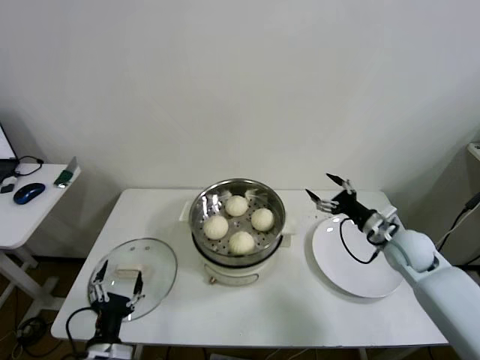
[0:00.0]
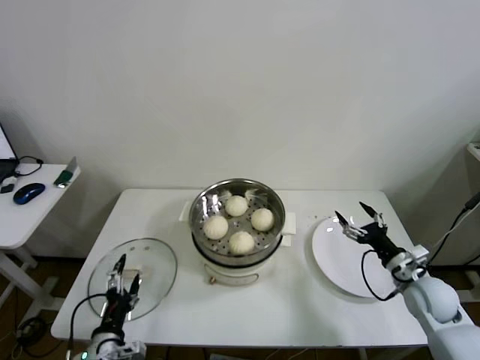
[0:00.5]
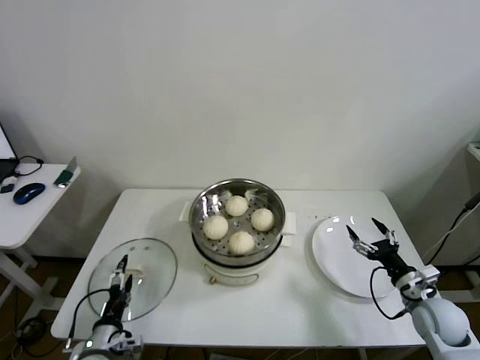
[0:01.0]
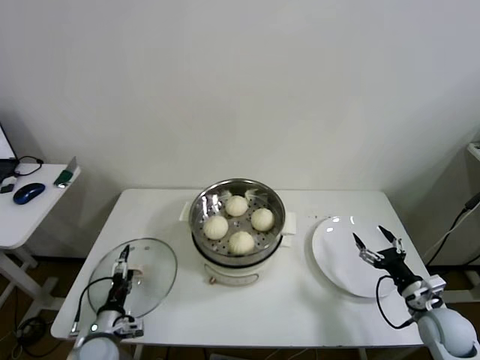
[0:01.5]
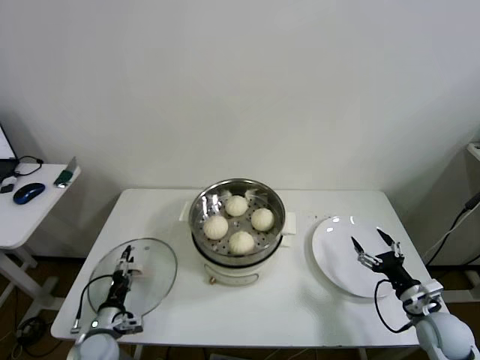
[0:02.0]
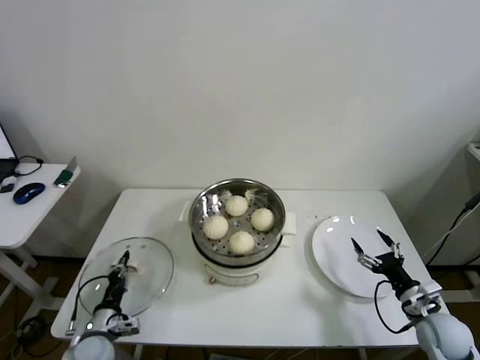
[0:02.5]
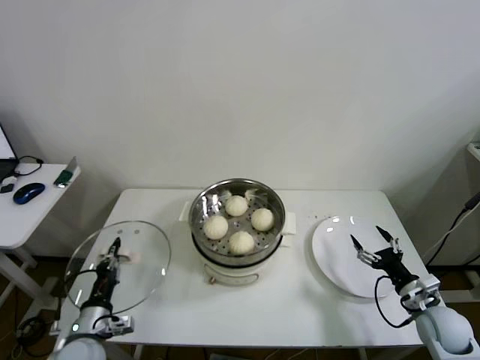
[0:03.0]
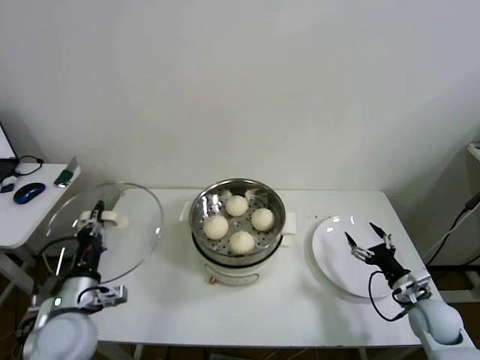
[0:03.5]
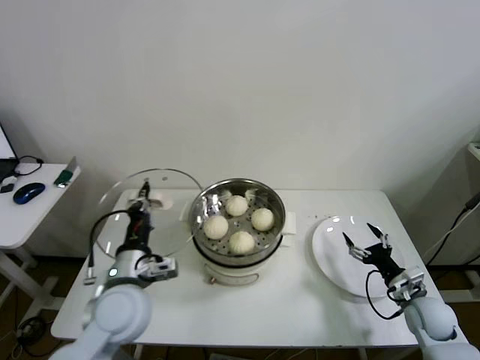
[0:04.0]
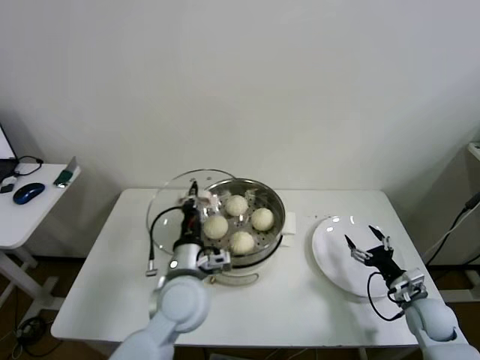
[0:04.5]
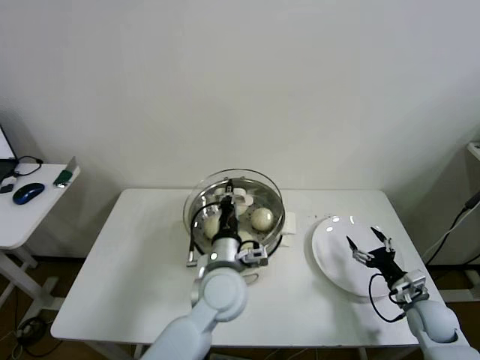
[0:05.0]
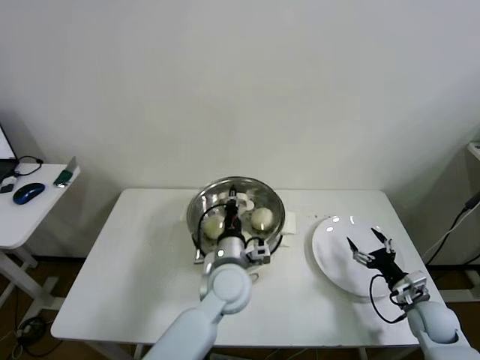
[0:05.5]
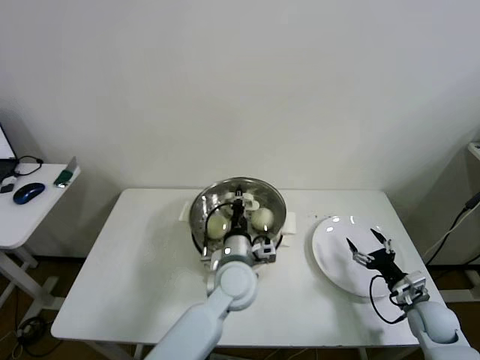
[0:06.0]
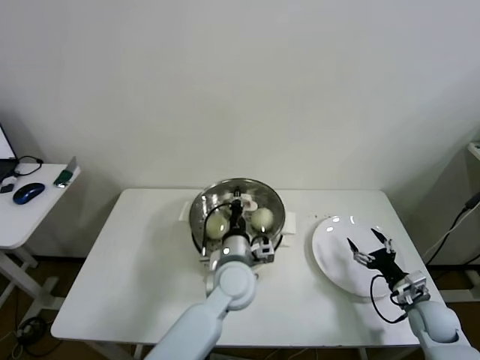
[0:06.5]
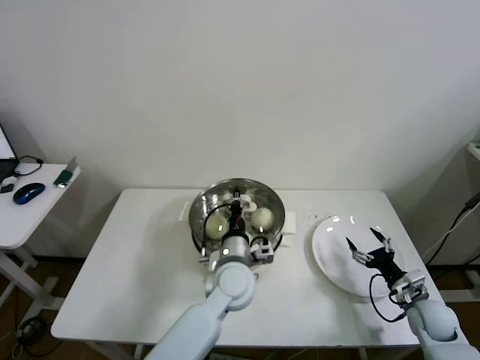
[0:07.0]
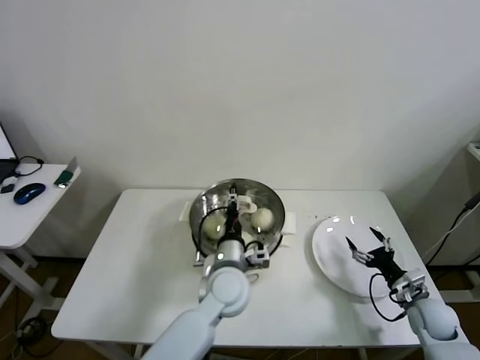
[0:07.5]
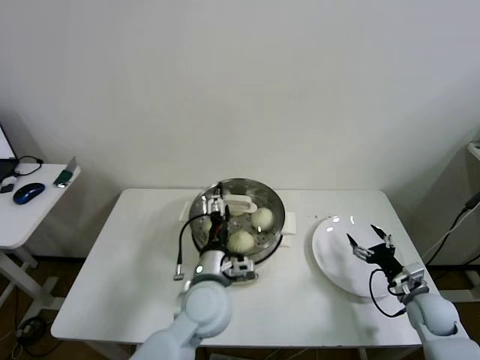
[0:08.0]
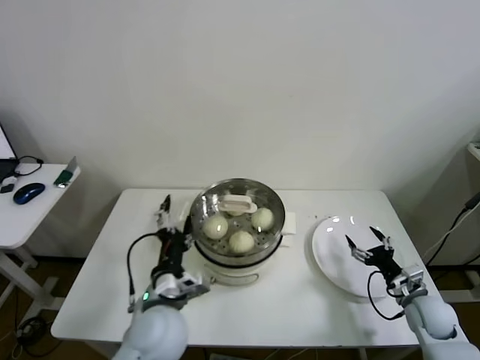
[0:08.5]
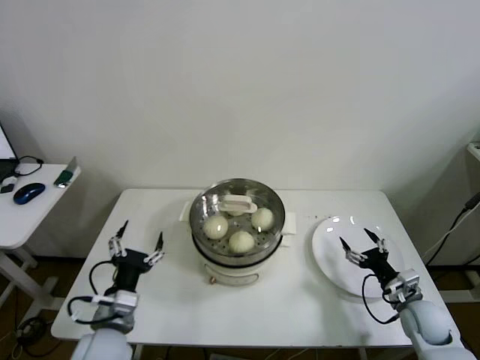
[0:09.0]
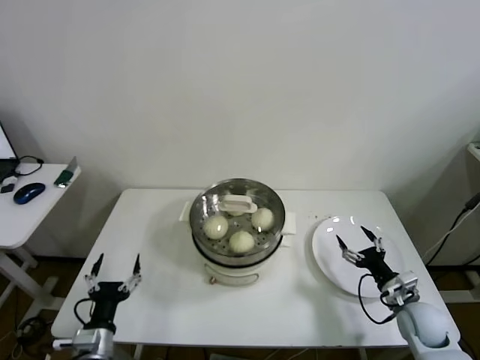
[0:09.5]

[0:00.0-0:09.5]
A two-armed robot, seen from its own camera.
Step, 0:00.0 to 0:02.5: Grasp the pot lid with left gripper.
Step, 0:03.0 to 0:08.0: Place the pot lid on the steamer with left gripper.
0:00.0 to 0:02.0: The left gripper is displaced forward, downward and to the left by about 15 cm, while the right gripper heads backward and downward, covering about 20 cm.
0:02.0 to 0:04.0: The left gripper moves upward and to the right, about 25 cm, and closes.
0:04.0 to 0:05.5: The left gripper shifts about 20 cm to the right.
0:05.5 to 0:07.5: The left gripper opens.
0:07.5 to 0:09.5: The left gripper shifts about 30 cm to the left and backward, and opens up.

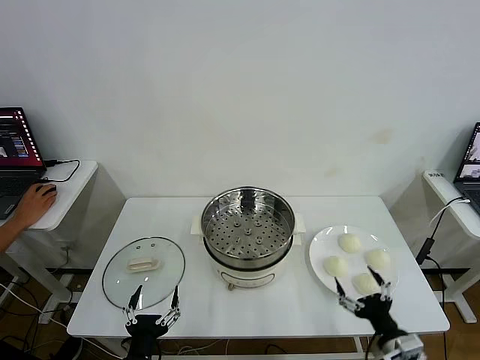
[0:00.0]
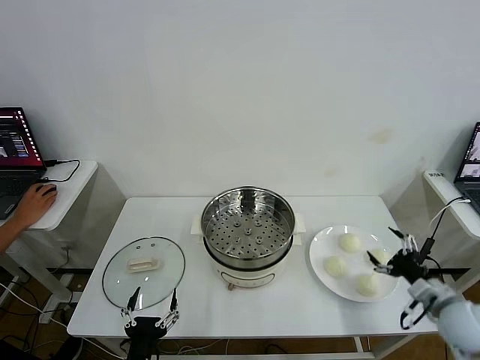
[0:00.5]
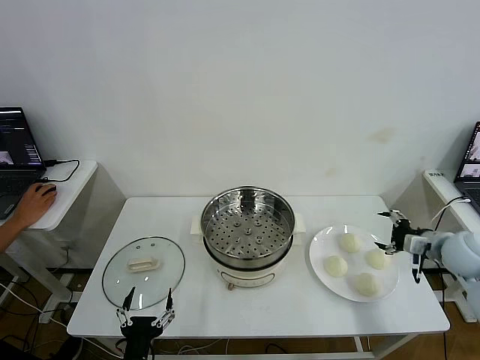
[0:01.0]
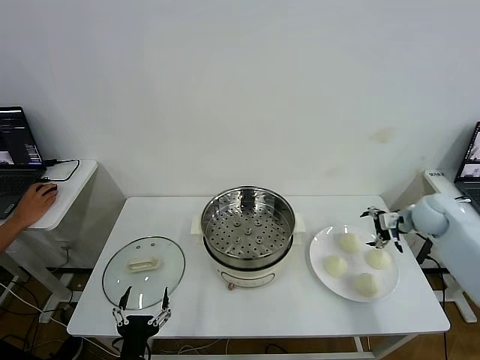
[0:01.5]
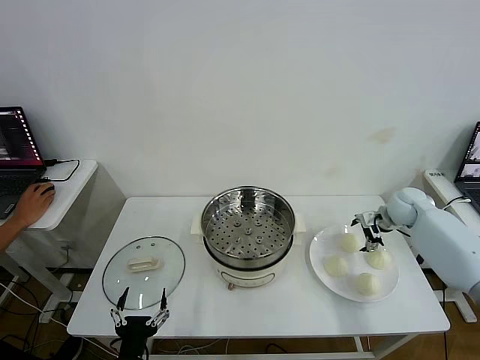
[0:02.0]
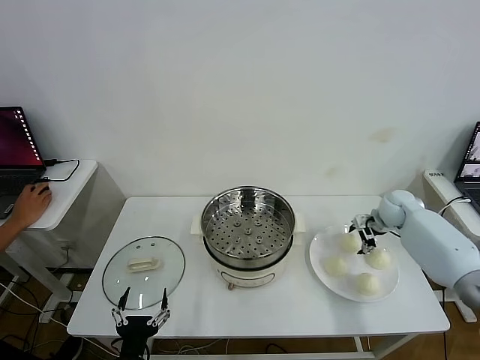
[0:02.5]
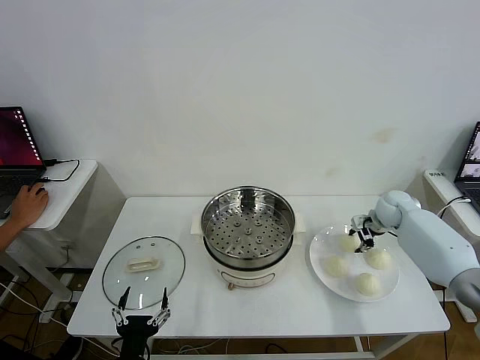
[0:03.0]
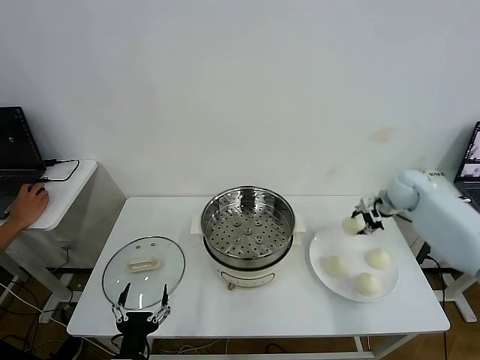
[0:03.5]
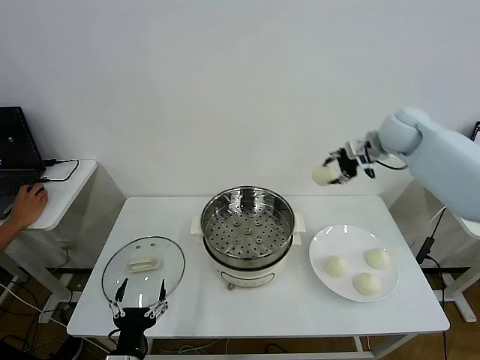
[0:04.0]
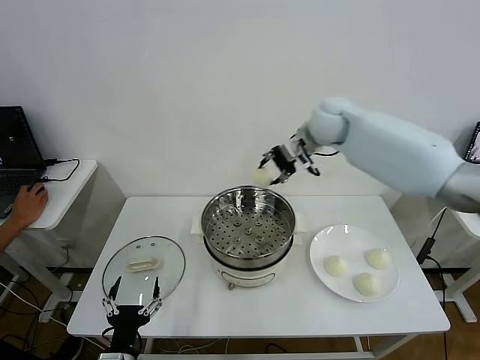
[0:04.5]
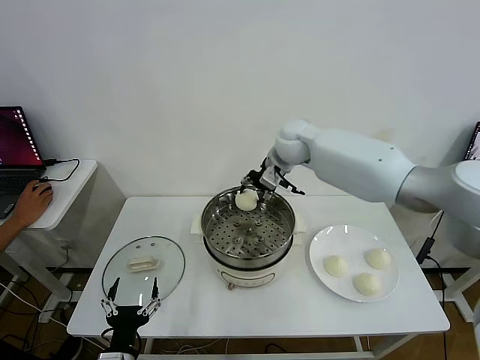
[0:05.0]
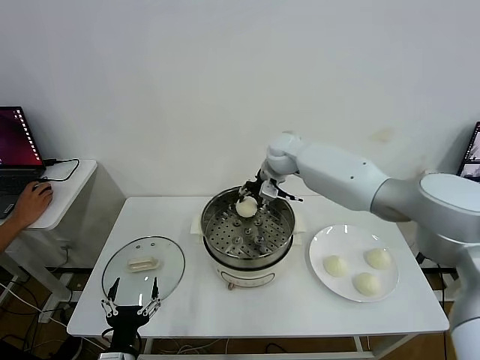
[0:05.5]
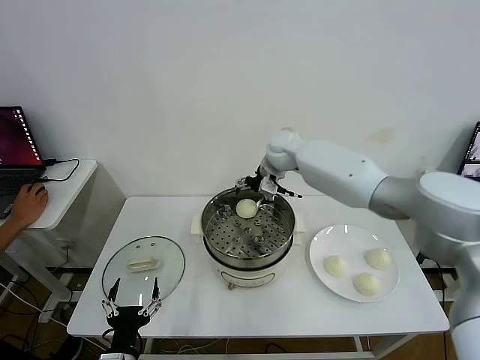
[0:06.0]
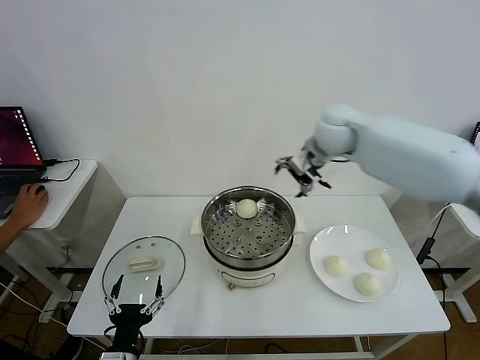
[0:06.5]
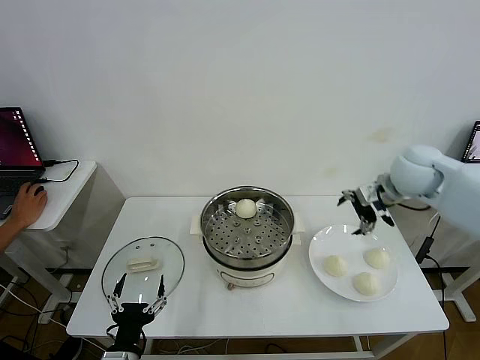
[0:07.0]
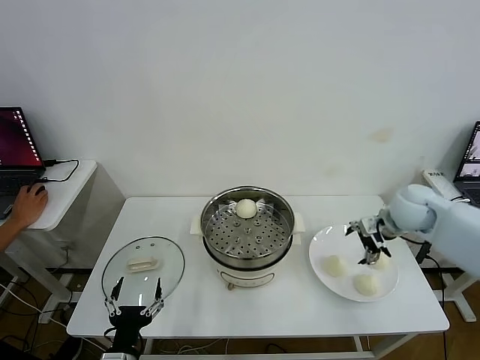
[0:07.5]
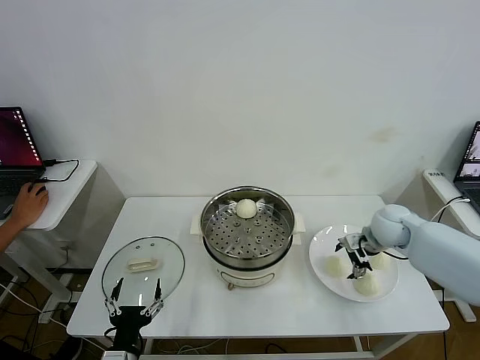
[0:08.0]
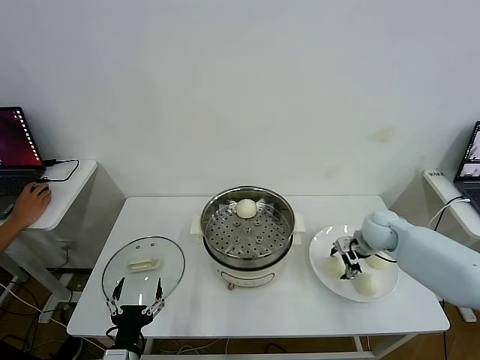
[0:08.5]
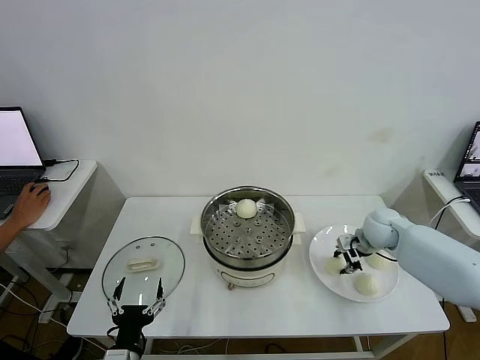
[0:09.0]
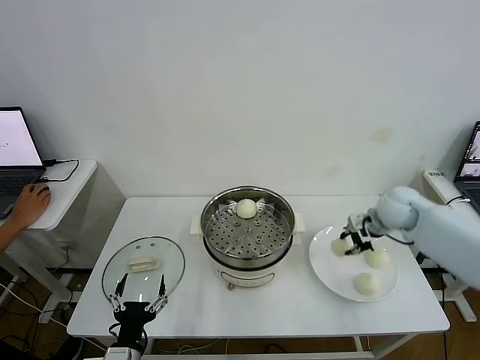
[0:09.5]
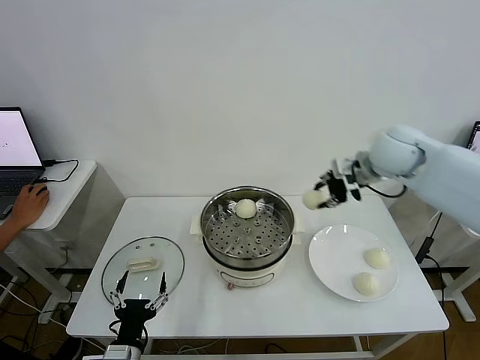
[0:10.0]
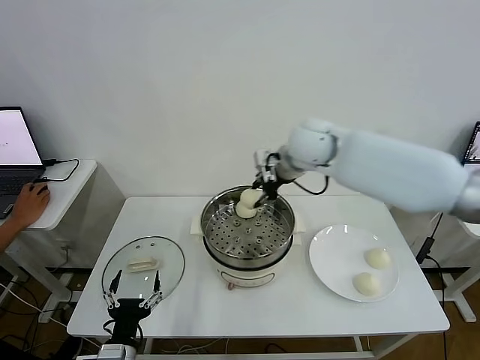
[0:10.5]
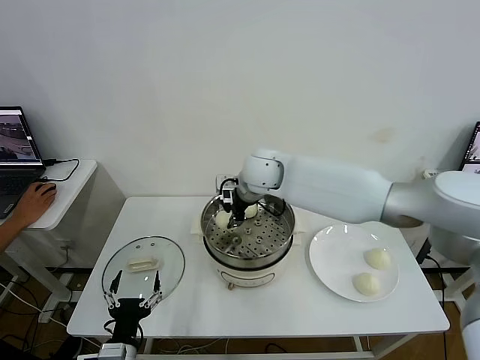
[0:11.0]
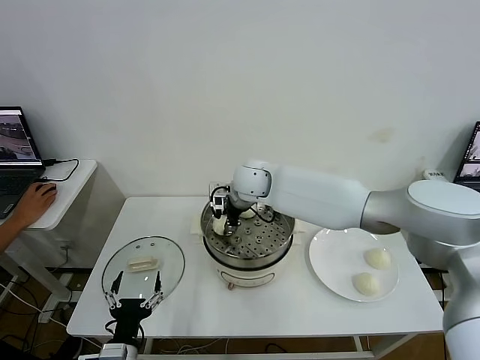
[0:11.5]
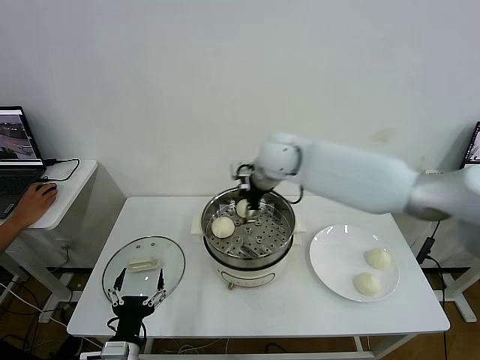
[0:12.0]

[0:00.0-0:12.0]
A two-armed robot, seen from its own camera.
Step, 0:00.0 to 0:03.0: Grasp the baozi in the plate with right gripper.
Step, 0:03.5 to 0:06.0: Place the baozi on the steamer with right gripper.
Step, 0:06.5 to 0:09.0: Grasp the baozi in the plate with right gripper.
Step, 0:09.5 to 0:12.0: Place the baozi on the steamer with right gripper.
0:02.0 to 0:04.0: The right gripper is displaced upward and to the left by some 25 cm, and closes up.
0:04.0 to 0:06.0: The right gripper goes about 20 cm to the left, and opens its fingers.
0:06.0 to 0:08.0: The right gripper is displaced to the right, downward and backward by roughly 30 cm.
0:08.0 to 0:10.0: The right gripper goes about 20 cm upward, and closes.
0:10.0 to 0:12.0: The right gripper heads to the left, covering approximately 20 cm, and opens.

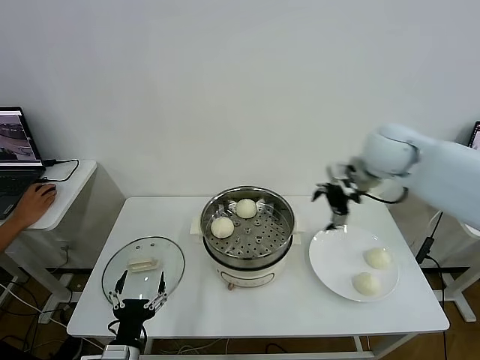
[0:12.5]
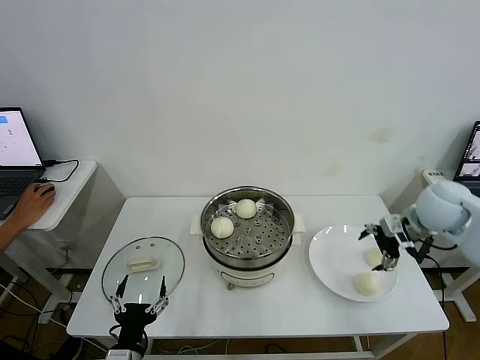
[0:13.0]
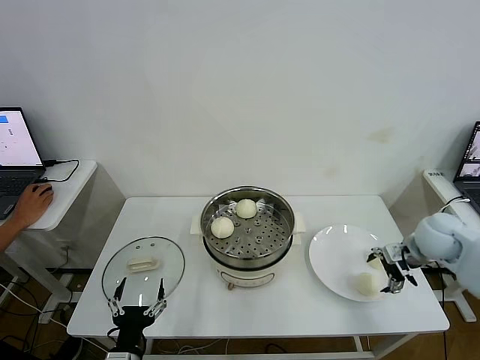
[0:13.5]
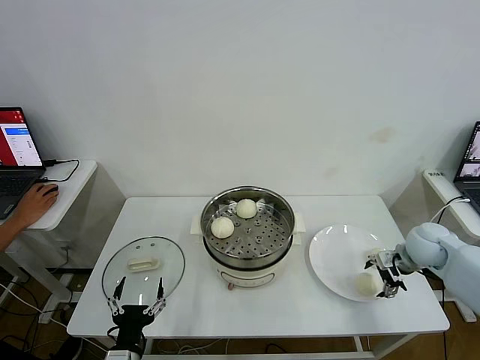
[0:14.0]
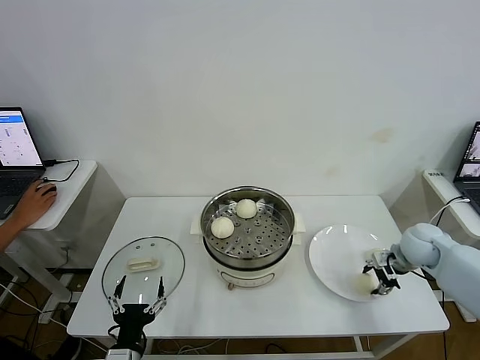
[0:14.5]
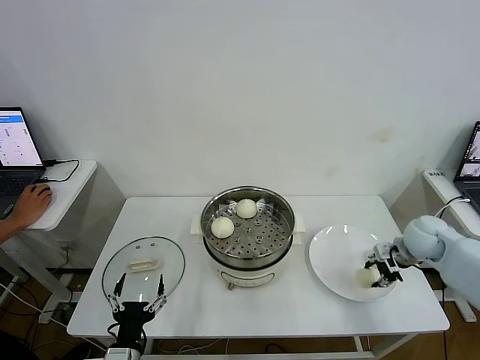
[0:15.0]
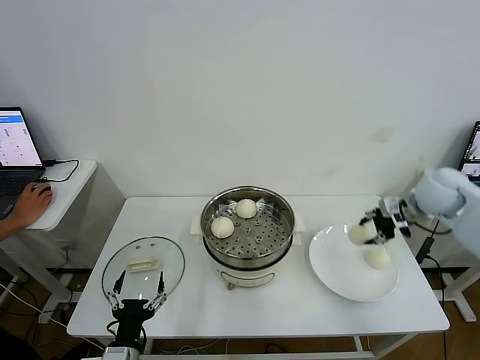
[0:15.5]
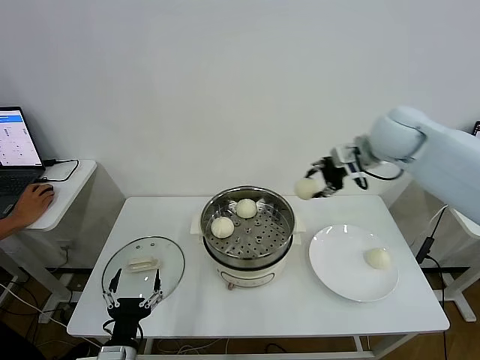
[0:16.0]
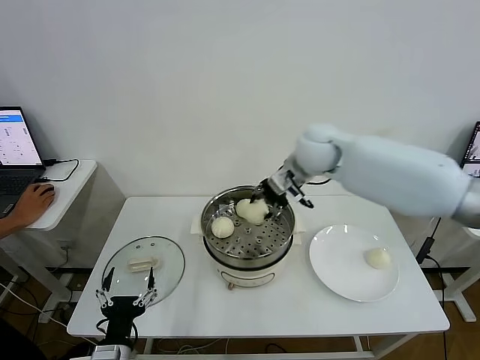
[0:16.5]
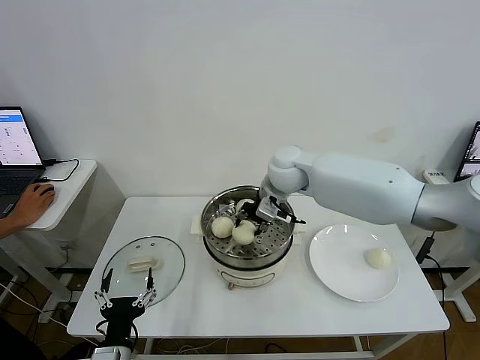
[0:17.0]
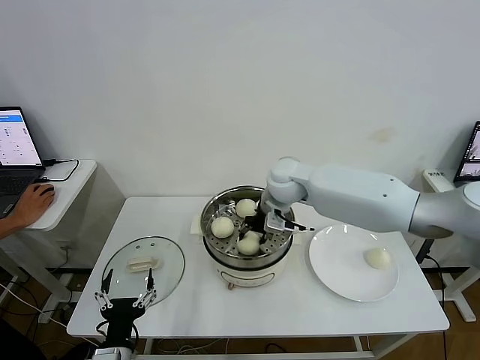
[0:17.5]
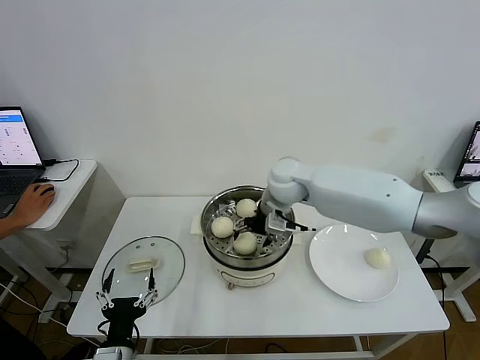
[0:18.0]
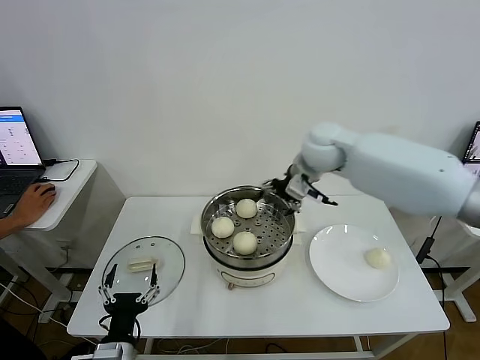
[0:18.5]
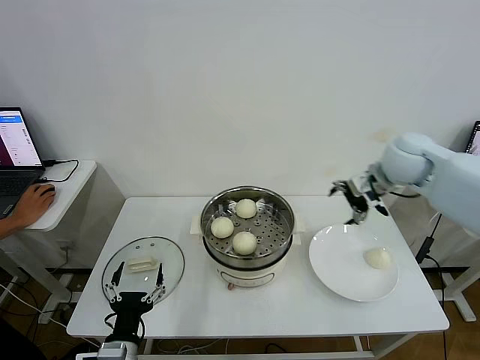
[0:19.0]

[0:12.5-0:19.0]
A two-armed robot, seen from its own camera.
Step, 0:12.5 to 0:14.0: Grasp the baozi in the plate with right gripper.
Step, 0:15.0 to 0:18.0: Place the baozi on the steamer with right gripper.
0:12.5 to 0:14.5: The right gripper travels downward and to the right by some 25 cm, and closes.
0:14.5 to 0:17.0: The right gripper shifts some 35 cm to the left and upward.
0:17.0 to 0:19.0: The right gripper goes roughly 25 cm to the right, and opens its fingers.